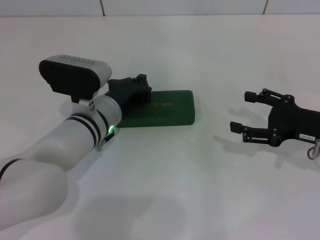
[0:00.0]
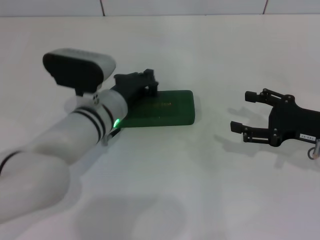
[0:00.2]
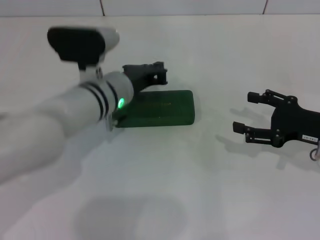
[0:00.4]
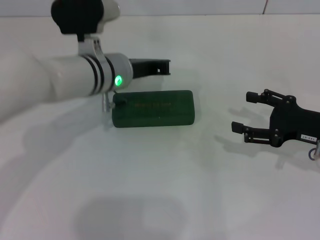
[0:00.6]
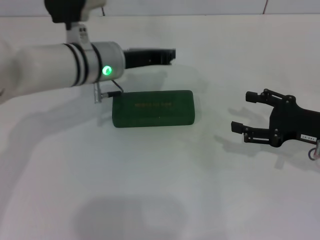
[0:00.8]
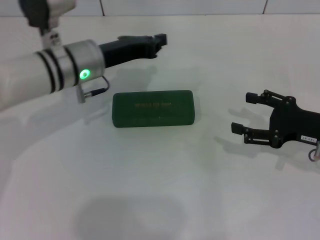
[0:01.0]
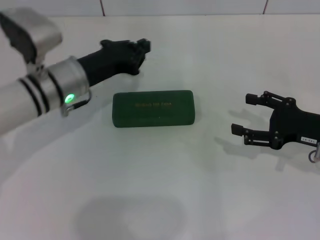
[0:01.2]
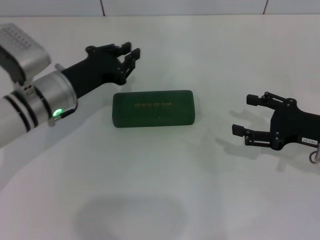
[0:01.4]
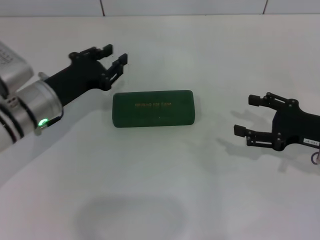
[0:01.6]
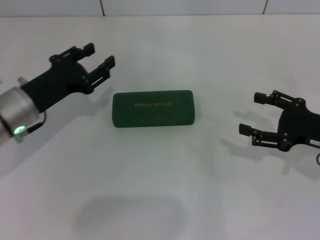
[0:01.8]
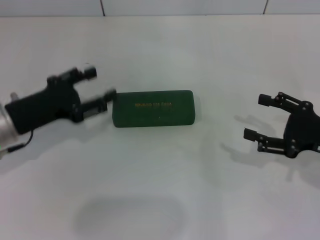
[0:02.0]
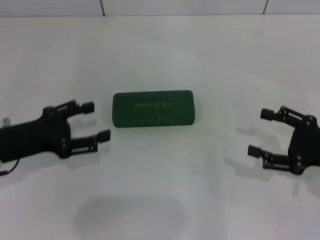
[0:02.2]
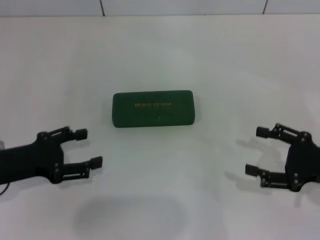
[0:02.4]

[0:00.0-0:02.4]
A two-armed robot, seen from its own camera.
0:00.0 to 0:01.2: The left gripper goes some 5 cm to the left.
0:01.2 to 0:02.4: The right gripper goes roughly 5 cm backward. Meanwhile the left gripper is displaced backward and to the left by some 15 cm, and opens.
